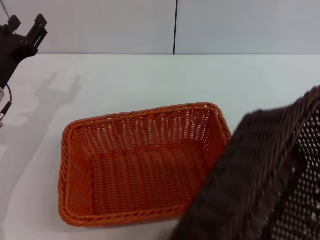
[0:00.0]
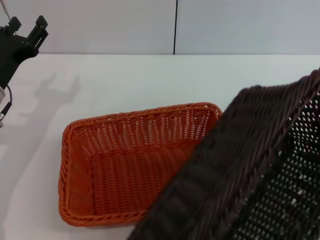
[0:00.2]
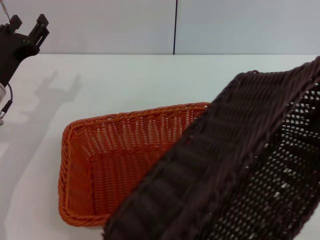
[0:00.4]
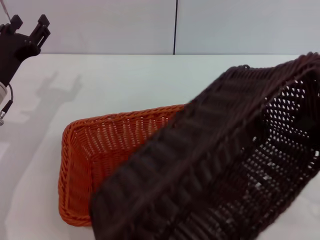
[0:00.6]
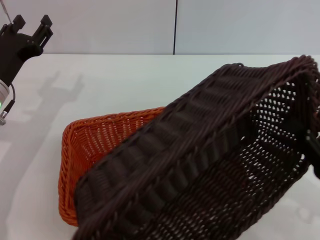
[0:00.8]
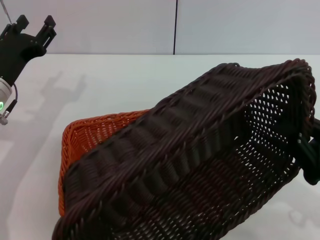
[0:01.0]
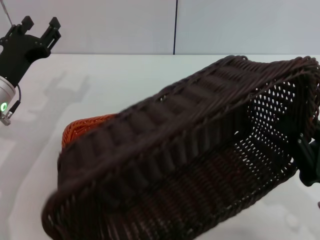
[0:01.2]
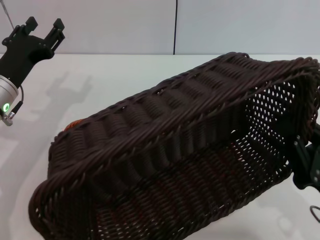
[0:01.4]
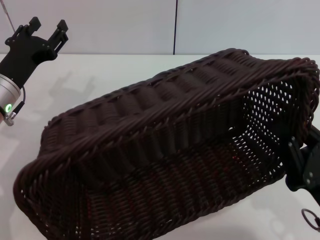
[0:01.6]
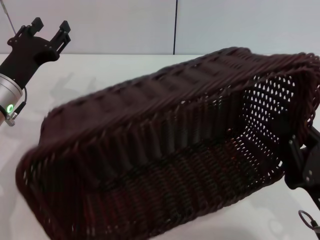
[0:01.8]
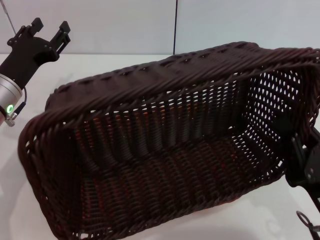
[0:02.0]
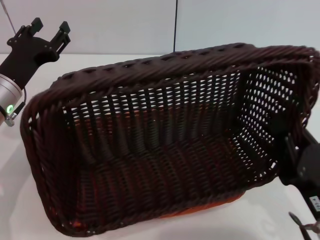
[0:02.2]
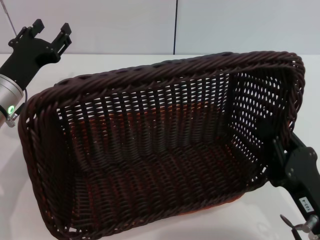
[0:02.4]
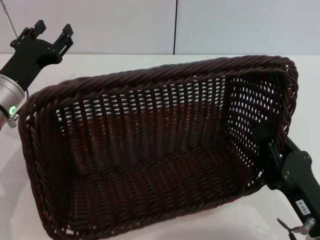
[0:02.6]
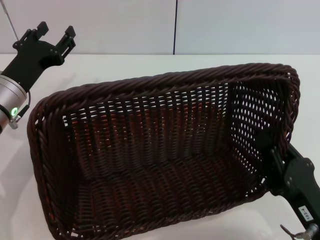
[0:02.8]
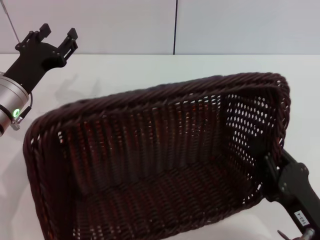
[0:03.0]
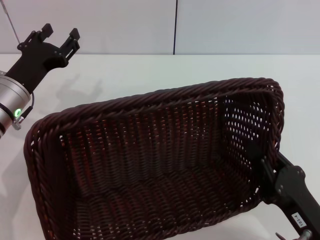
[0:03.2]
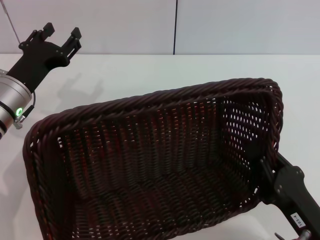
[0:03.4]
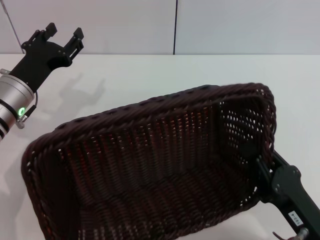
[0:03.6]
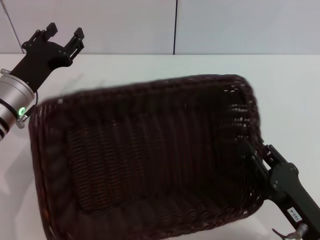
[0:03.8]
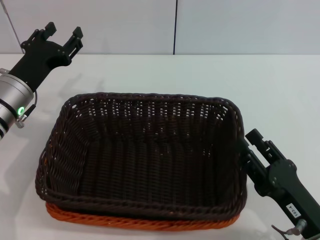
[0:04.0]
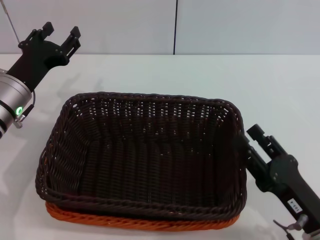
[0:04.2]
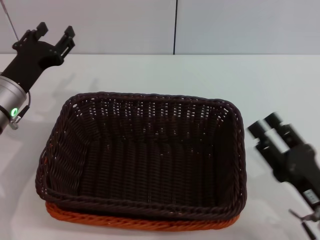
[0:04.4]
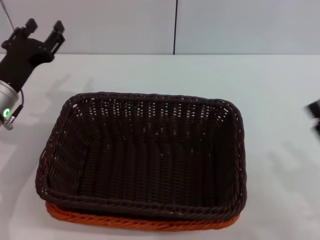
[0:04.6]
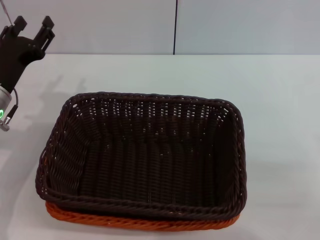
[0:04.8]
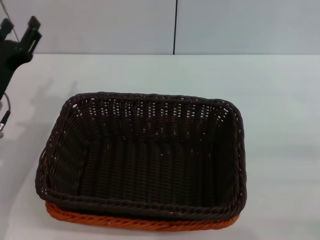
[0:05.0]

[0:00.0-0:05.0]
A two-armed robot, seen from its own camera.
Step, 0:00.0 to 0:04.0: Place the dark basket on the light basket with the right gripper.
0:00.0 to 0:01.6: The right gripper goes approximately 20 cm to the left, downward and backward.
0:03.4 to 0:05.0: The right gripper goes about 20 cm to the right and forward, and opens up.
